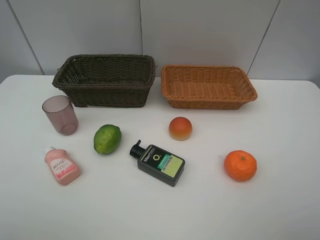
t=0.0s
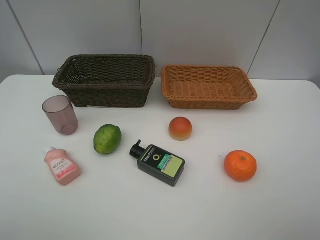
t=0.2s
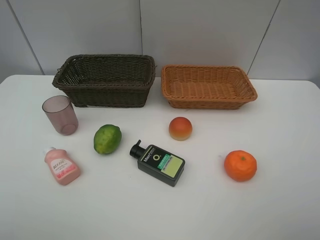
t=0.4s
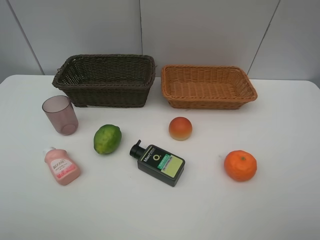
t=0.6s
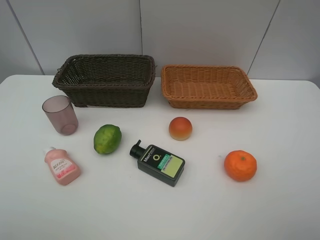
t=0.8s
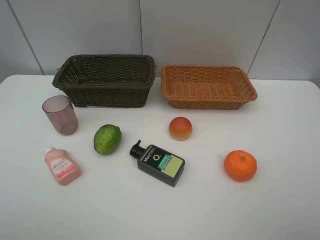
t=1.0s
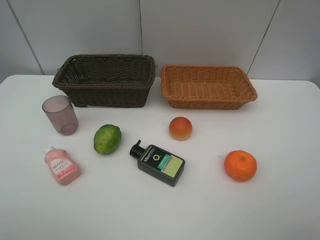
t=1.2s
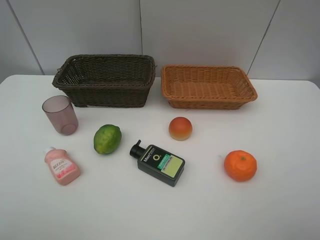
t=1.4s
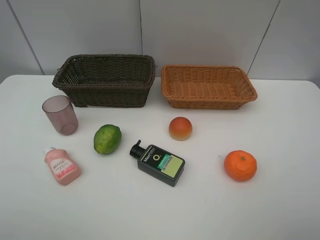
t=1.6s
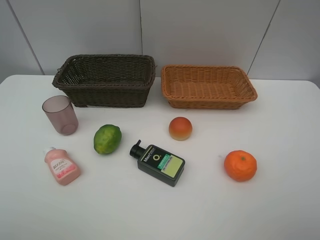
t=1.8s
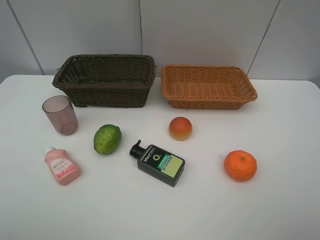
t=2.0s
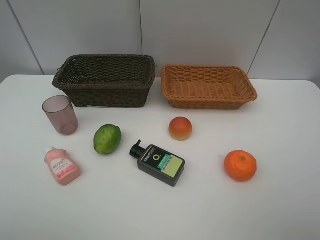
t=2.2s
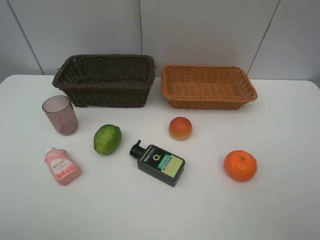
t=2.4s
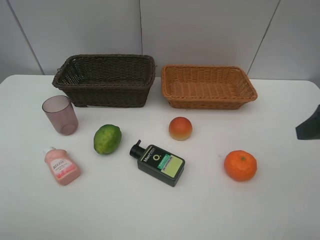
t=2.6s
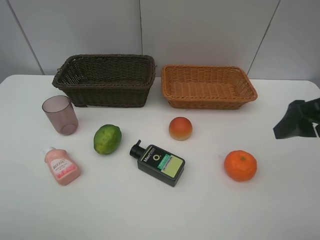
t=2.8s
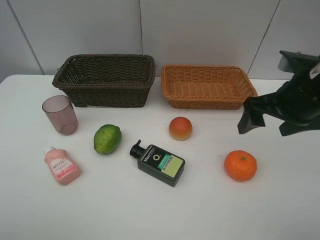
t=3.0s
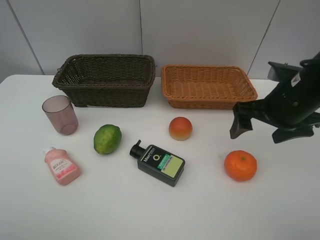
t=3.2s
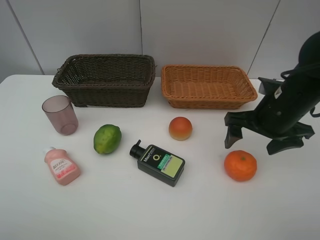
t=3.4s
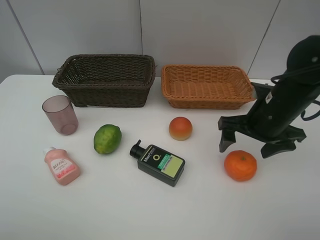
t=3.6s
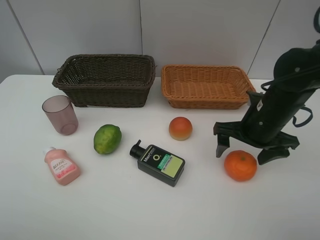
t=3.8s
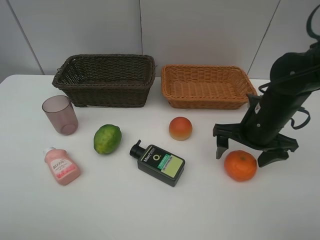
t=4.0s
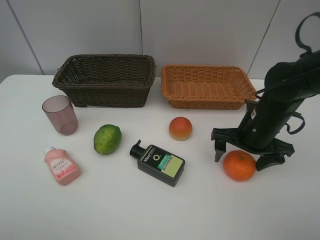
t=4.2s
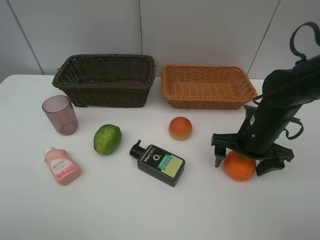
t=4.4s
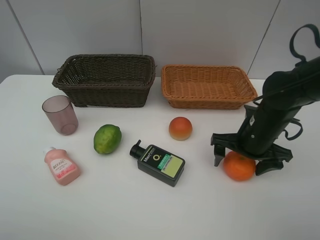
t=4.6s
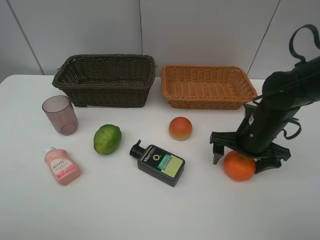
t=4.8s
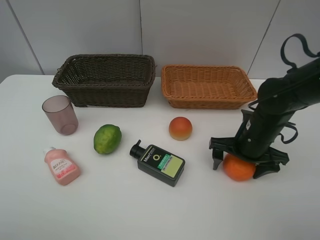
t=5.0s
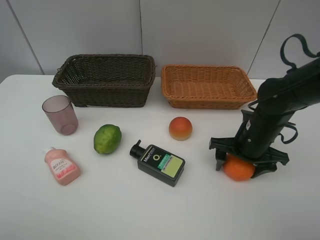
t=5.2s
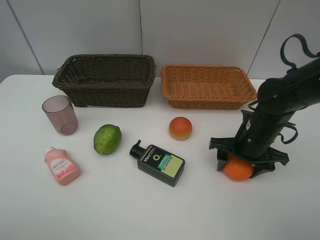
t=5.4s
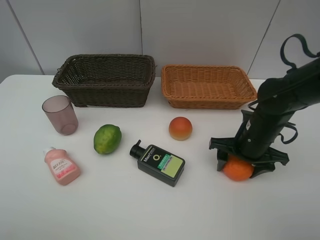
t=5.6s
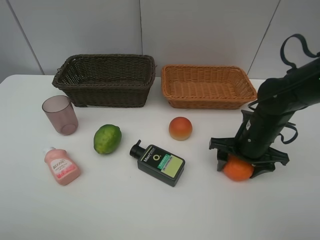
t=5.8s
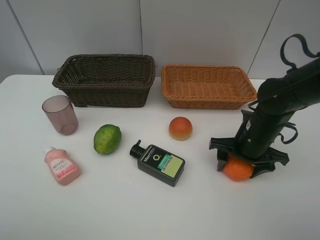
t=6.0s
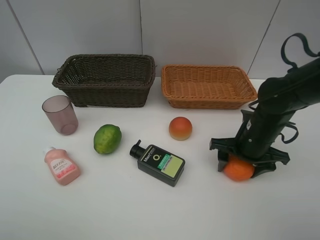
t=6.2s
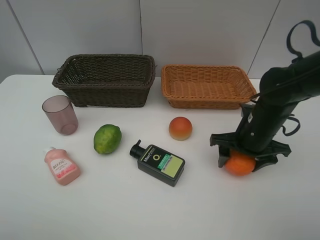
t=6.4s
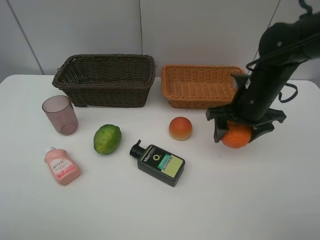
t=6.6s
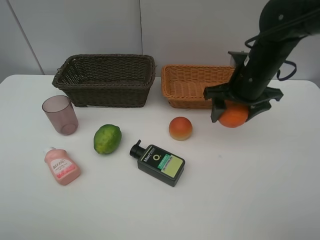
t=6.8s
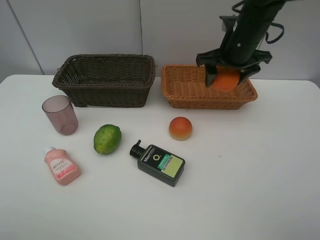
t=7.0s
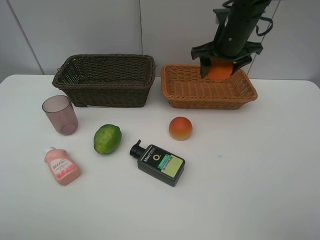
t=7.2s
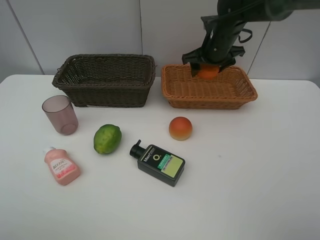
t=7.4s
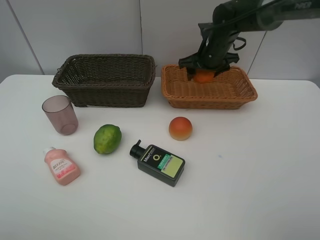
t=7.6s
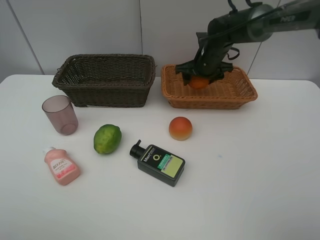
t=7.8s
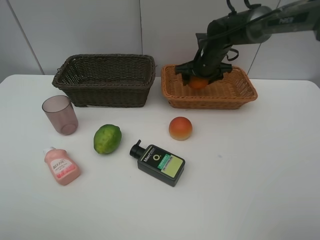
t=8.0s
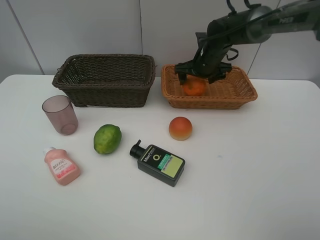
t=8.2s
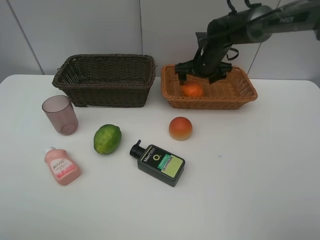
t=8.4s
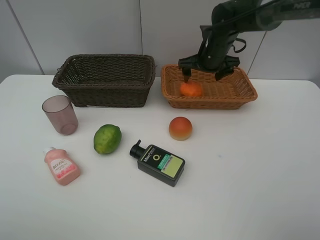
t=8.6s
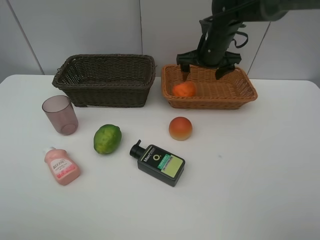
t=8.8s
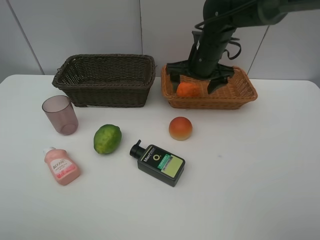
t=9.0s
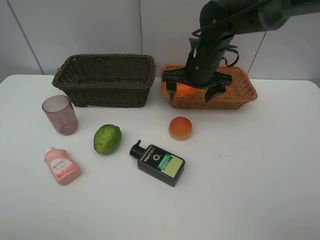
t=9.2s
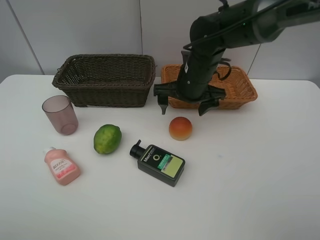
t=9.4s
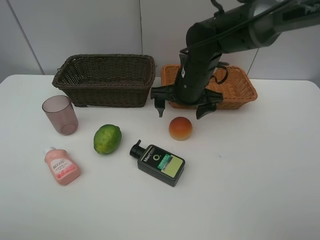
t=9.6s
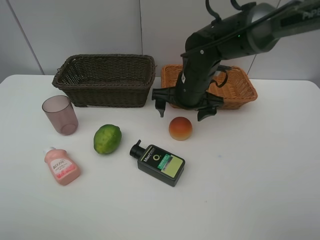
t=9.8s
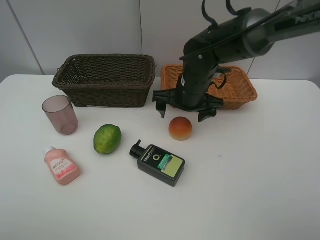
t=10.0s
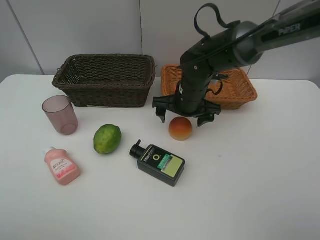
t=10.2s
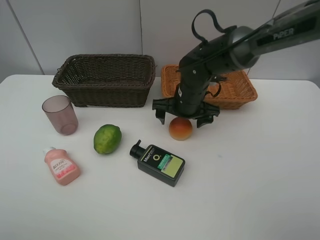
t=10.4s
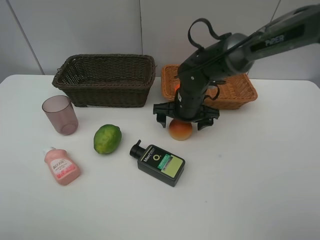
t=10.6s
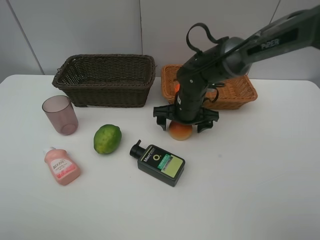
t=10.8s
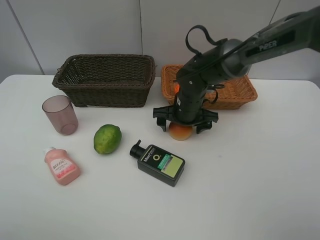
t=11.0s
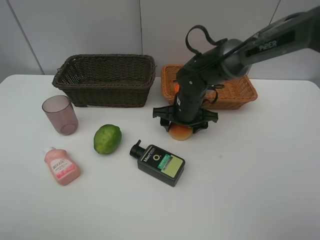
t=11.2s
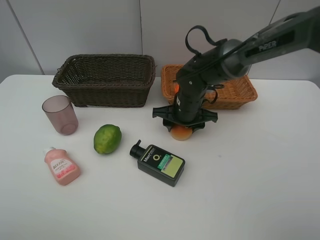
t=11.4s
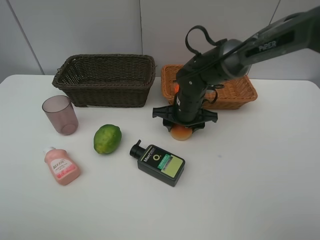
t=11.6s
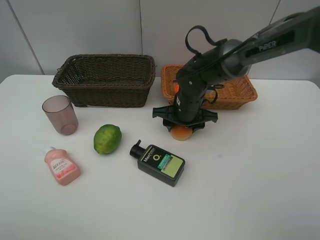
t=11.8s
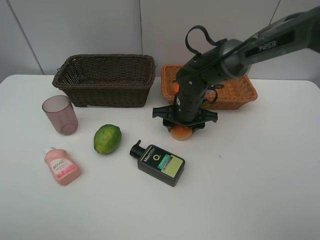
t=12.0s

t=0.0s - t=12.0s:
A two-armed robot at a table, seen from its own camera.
Task of the whole recording: place multiple objects separately in different baskets.
t=0.0s - t=1.6s: Neither gripper changes place.
t=1.6s - t=3.0s: The right gripper travels forward by some 25 cm.
t=3.0s - t=4.4s: The right gripper shifts some 10 cm downward.
t=4.4s - t=6.0s: The right gripper closes up.
t=6.0s - t=7.6s: The right gripper goes about 20 cm forward.
t=7.6s - t=9.0s: The right gripper goes some 5 cm backward, and opens its fingers.
t=9.0s - t=10.4s: The right gripper is displaced downward by roughly 5 cm.
t=10.4s - t=12.0s: The right gripper closes up.

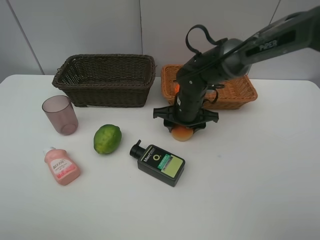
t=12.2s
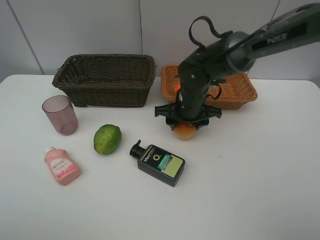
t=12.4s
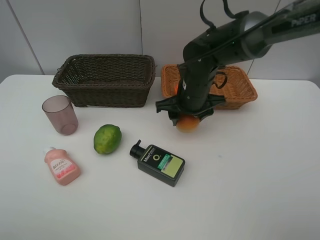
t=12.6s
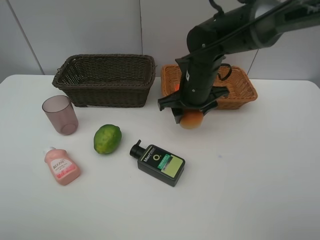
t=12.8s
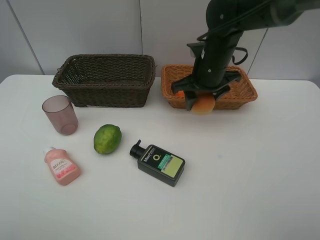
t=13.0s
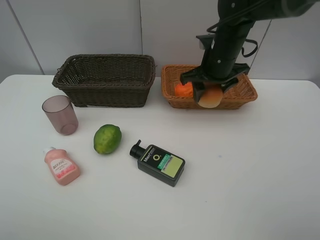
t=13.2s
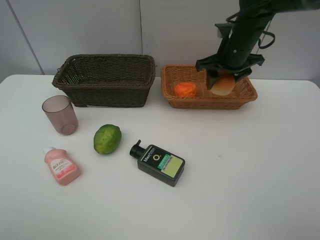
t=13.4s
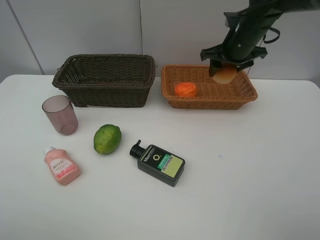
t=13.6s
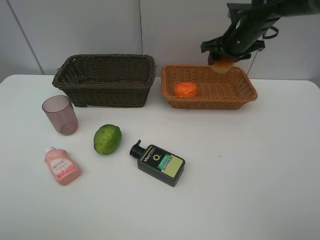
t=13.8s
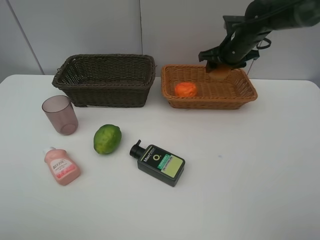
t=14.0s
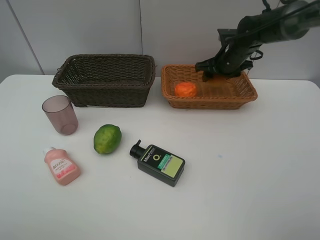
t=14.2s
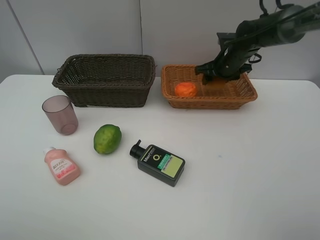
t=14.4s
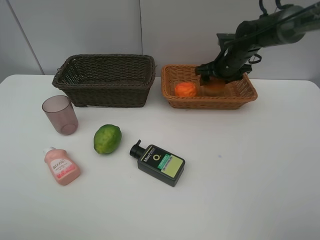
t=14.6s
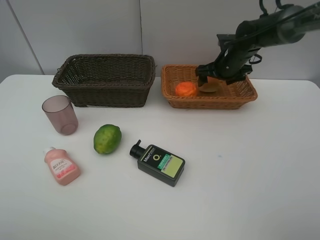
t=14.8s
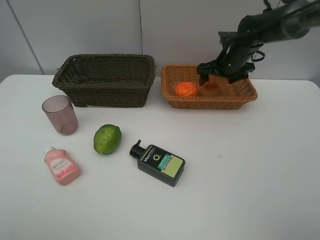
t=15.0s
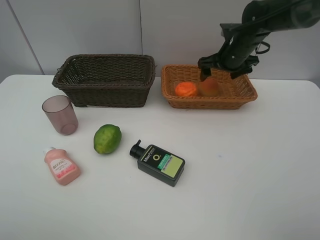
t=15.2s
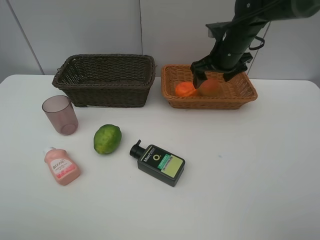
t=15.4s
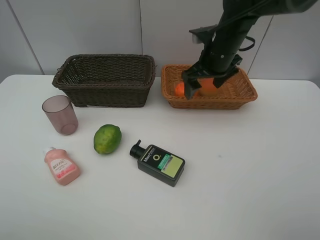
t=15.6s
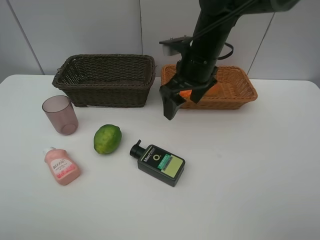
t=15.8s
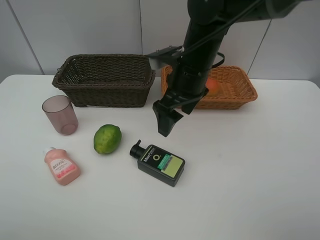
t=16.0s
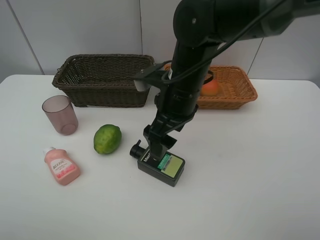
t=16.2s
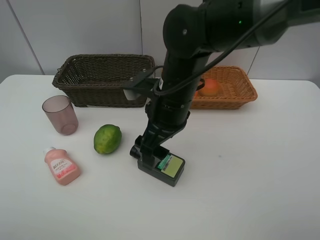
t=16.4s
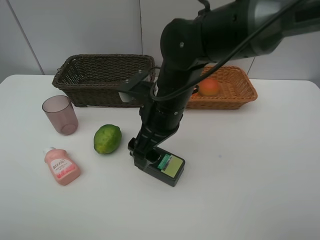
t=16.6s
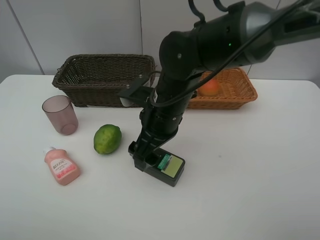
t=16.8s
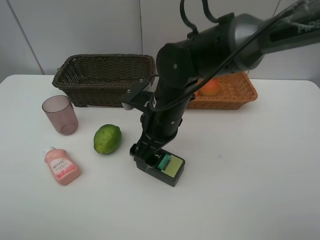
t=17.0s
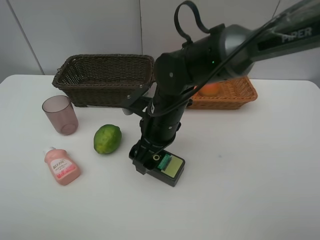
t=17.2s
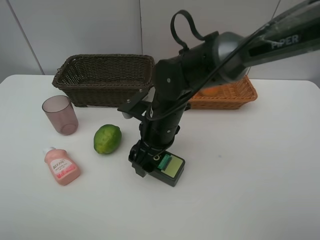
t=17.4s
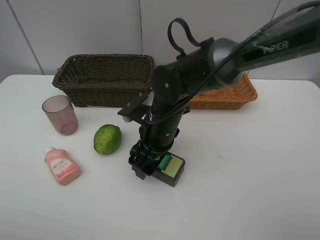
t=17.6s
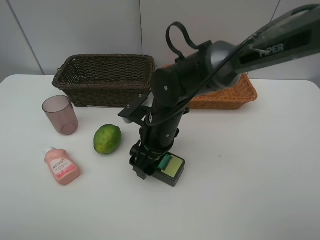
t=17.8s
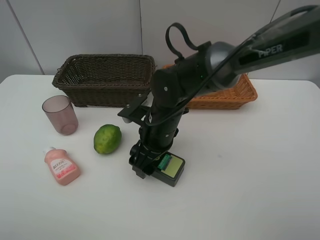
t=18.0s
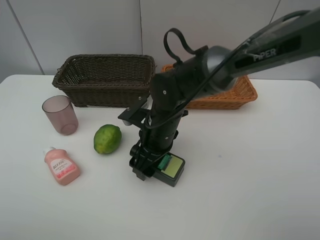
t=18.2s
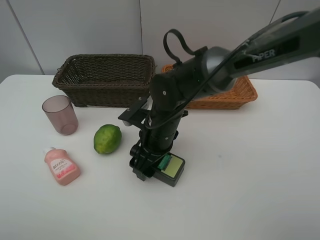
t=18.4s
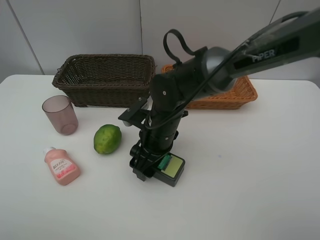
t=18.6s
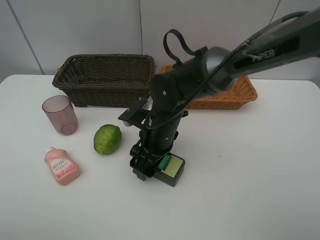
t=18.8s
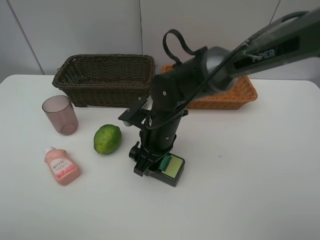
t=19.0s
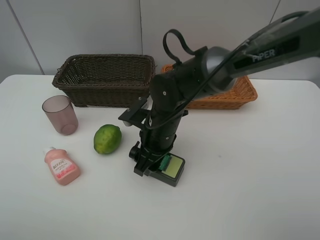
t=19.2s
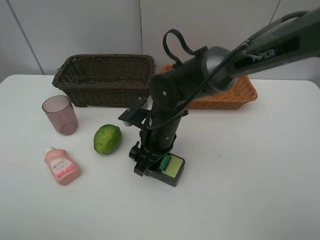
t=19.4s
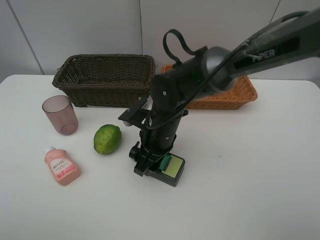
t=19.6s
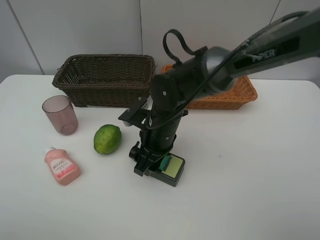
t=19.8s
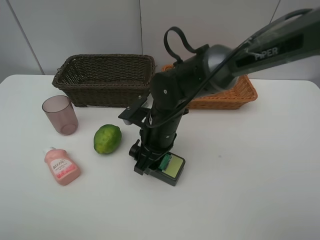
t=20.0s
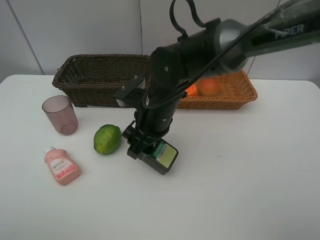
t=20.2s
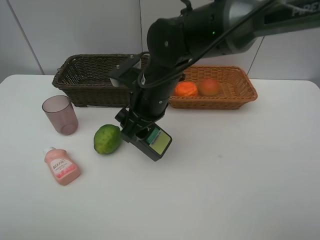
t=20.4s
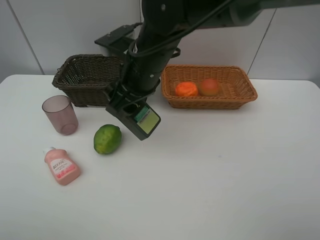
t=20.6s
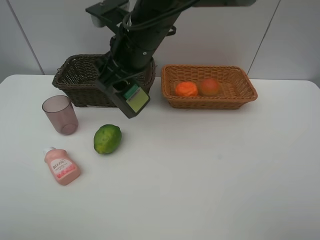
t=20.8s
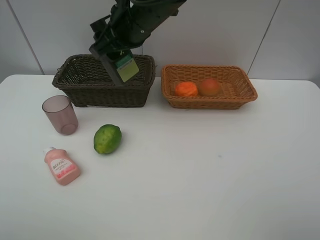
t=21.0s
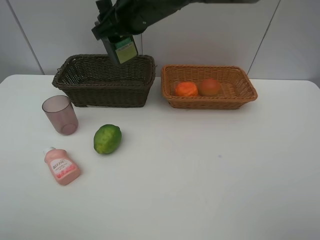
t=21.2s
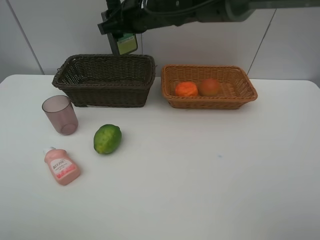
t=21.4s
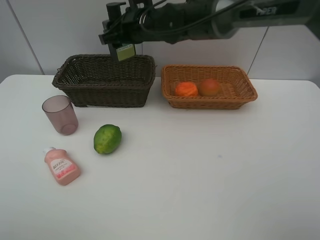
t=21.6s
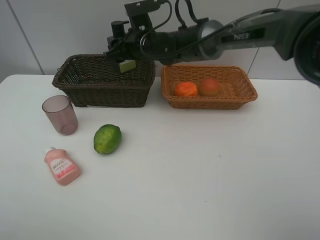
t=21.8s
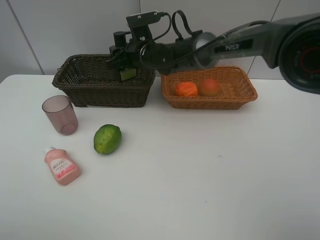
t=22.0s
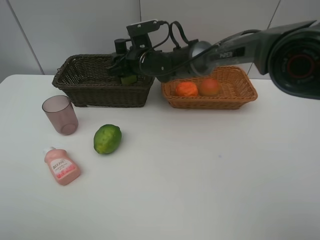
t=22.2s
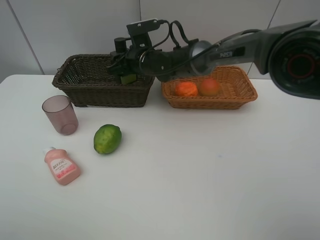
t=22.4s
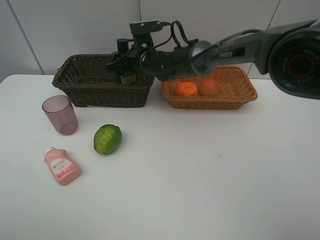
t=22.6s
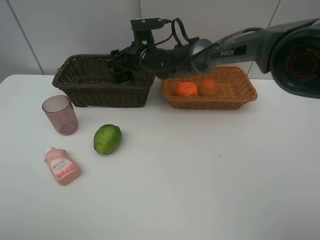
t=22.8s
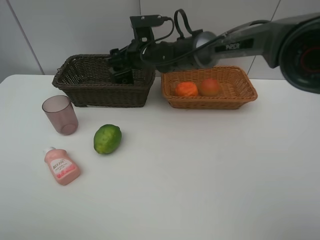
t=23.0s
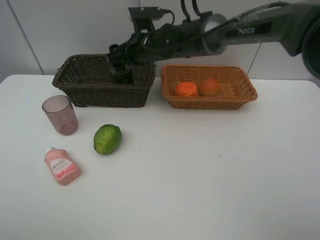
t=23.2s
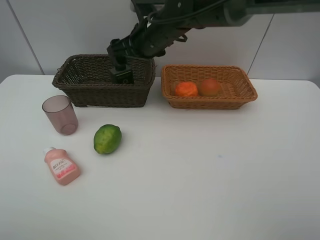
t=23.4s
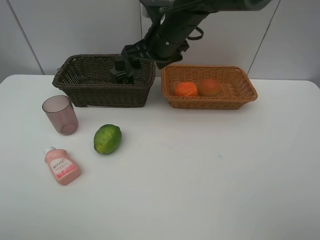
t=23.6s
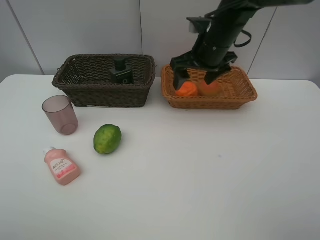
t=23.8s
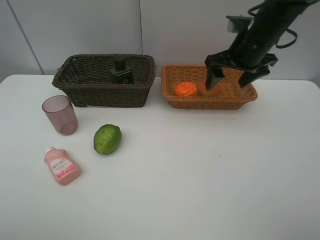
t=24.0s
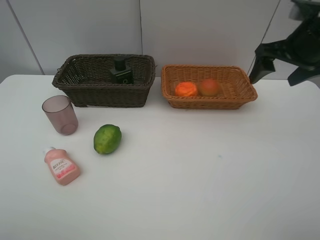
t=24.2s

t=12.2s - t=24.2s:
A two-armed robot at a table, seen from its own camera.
Task of the whole recording: place multiple objects separately in different baskets.
t=12.2s - t=13.8s: The right gripper is displaced to the right, upward and forward by some 20 cm.
t=13.8s - t=15.2s: The right gripper opens up.
t=15.2s - t=16.6s: The right gripper travels backward and to the left by approximately 25 cm.
t=16.6s - t=18.2s: The right gripper travels downward by roughly 5 cm.
t=18.2s - t=19.8s: The right gripper closes up.
t=19.8s - t=21.2s: The right gripper shifts about 20 cm upward and forward.
t=21.2s - t=22.6s: The right gripper travels downward and forward by some 15 cm.
t=22.6s - t=24.2s: The right gripper heads to the right, upward and backward, covering about 35 cm, and opens.
